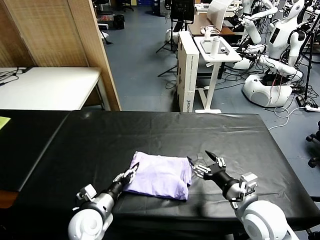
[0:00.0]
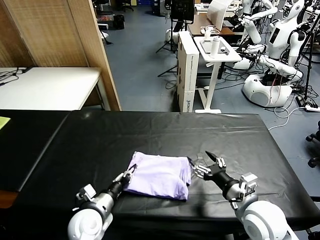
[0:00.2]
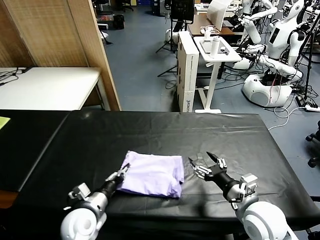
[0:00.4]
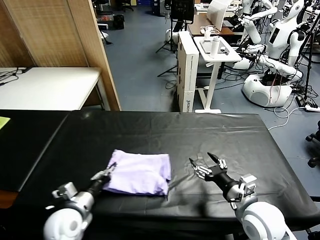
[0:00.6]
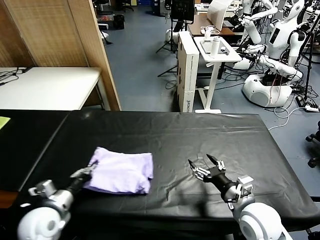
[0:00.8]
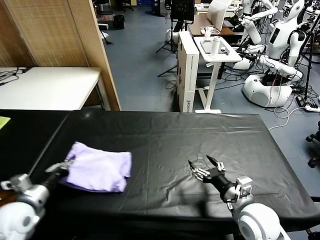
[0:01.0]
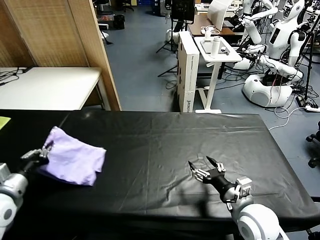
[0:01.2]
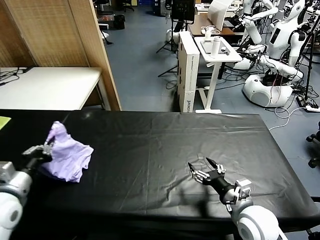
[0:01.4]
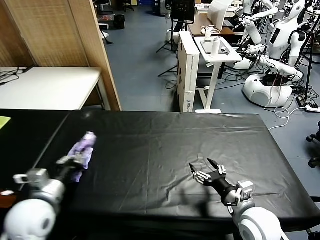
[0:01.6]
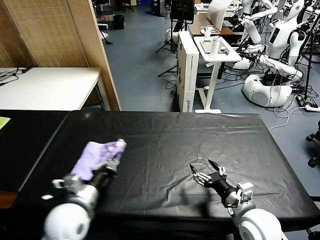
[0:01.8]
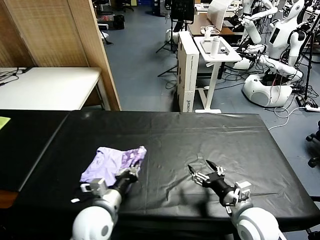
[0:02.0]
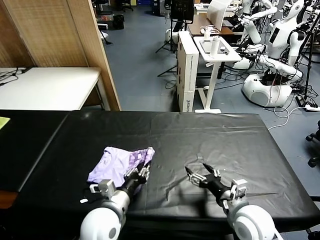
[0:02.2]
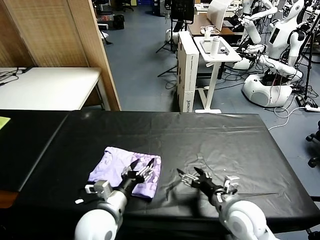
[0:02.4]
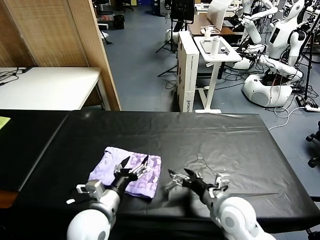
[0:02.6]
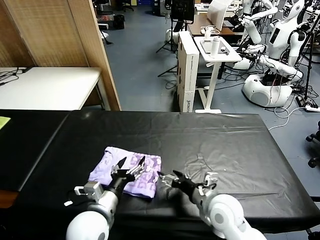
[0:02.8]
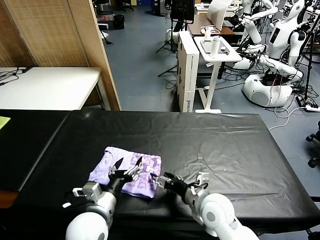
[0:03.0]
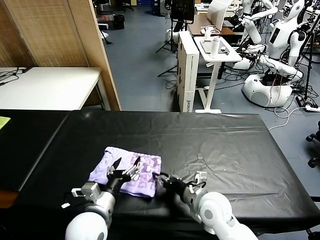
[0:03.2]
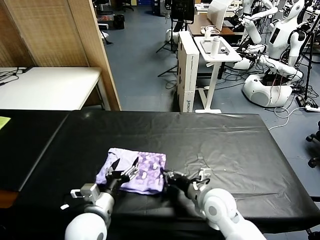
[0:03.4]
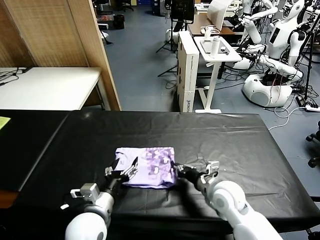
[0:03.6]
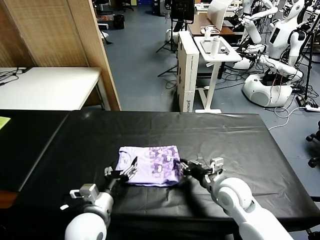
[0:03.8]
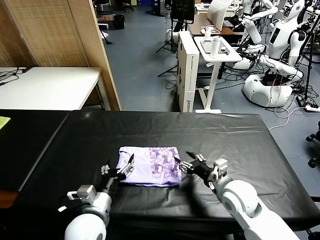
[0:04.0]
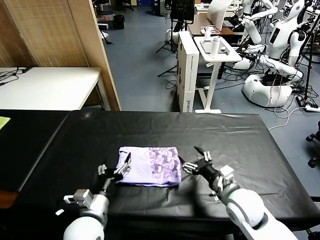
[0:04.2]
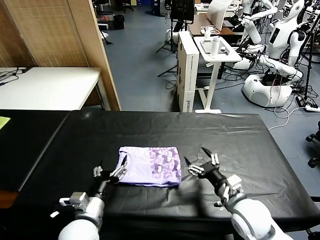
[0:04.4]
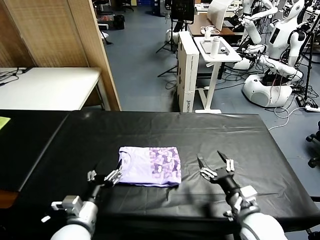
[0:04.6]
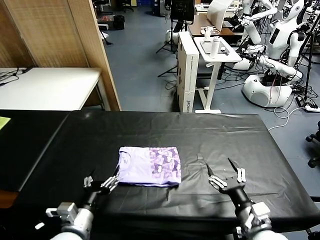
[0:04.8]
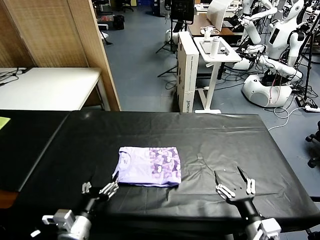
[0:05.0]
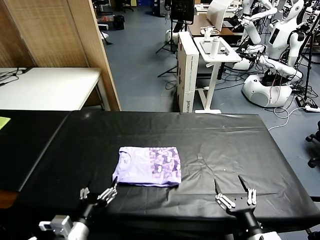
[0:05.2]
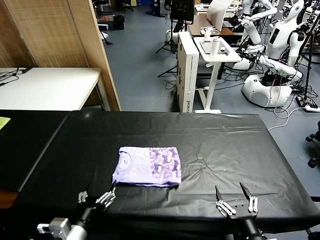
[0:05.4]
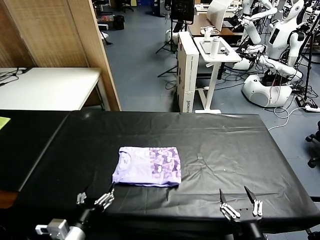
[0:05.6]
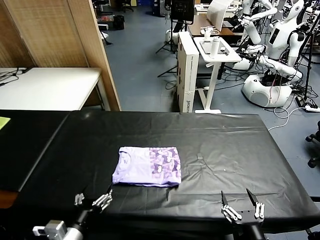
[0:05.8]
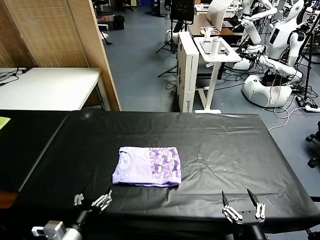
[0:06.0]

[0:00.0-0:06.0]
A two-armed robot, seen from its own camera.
Task of the whole recording: fold and organize the clothes.
Step, 0:00.0 to 0:02.4: Flip the folded clothes over with left gripper.
Step, 0:02.6 to 0:04.0: Drag the clothes to the center of the table.
0:00.0 to 0:01.6: The left gripper travels upward and to the left by roughly 15 cm, and closes.
0:01.6 to 0:03.0: The right gripper goes about 10 cm to the left and forward. The left gripper is displaced to the right by roughly 15 cm, and opens.
0:03.0 to 0:04.4: The right gripper heads to the right, covering roughly 10 cm, and closes, then reopens.
0:04.4 to 0:06.0: The right gripper shifts approximately 20 cm backward. Meanwhile the left gripper heads backward, covering some 10 cm.

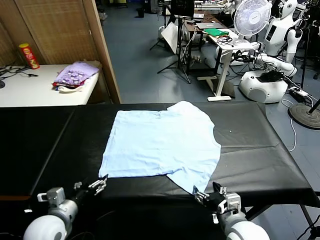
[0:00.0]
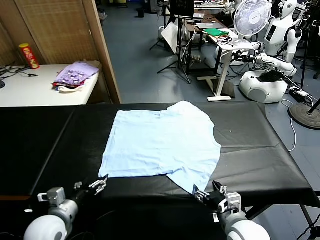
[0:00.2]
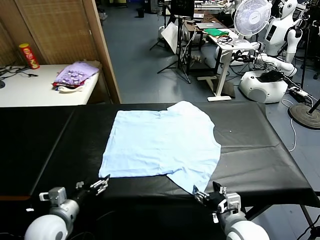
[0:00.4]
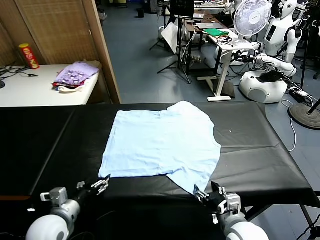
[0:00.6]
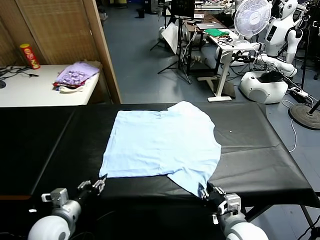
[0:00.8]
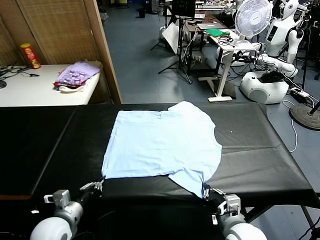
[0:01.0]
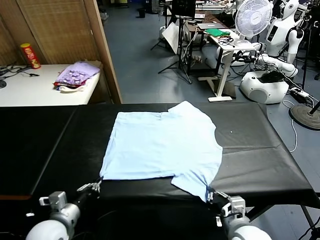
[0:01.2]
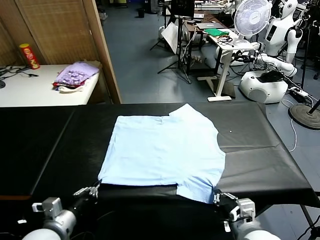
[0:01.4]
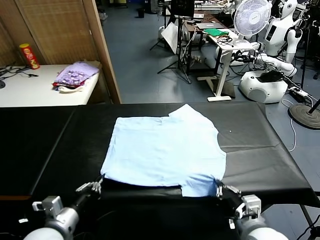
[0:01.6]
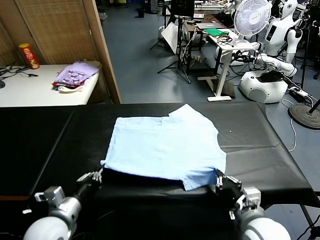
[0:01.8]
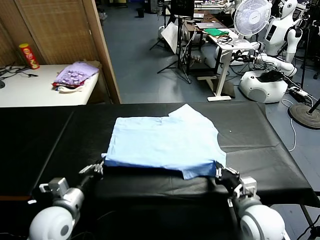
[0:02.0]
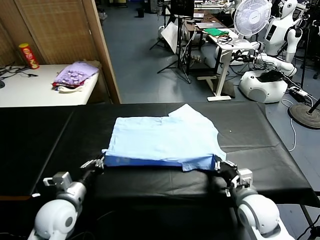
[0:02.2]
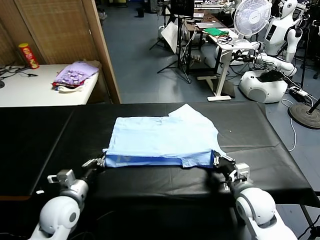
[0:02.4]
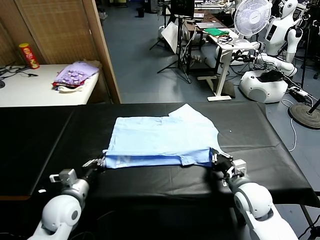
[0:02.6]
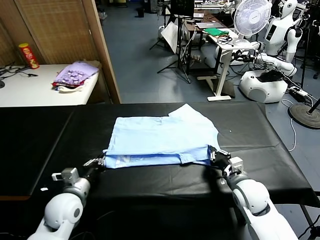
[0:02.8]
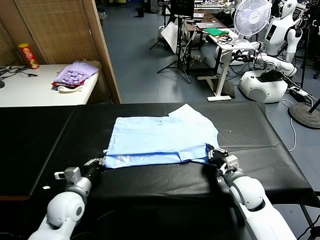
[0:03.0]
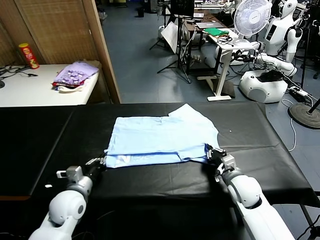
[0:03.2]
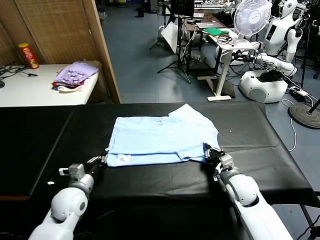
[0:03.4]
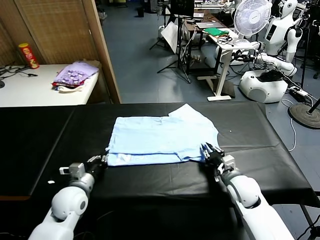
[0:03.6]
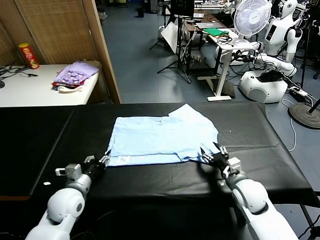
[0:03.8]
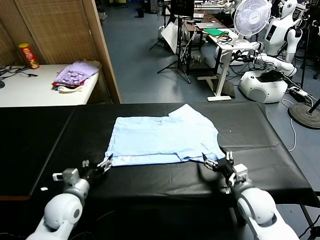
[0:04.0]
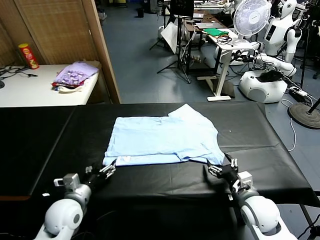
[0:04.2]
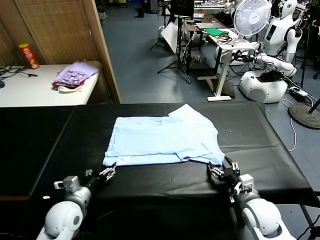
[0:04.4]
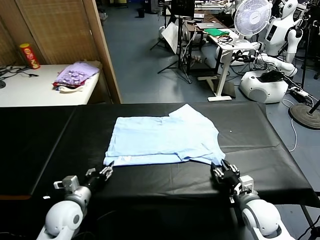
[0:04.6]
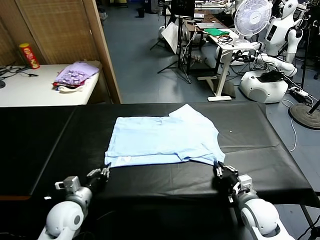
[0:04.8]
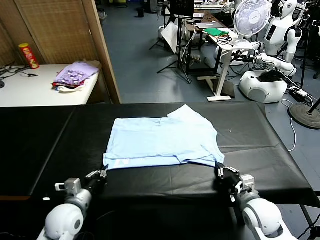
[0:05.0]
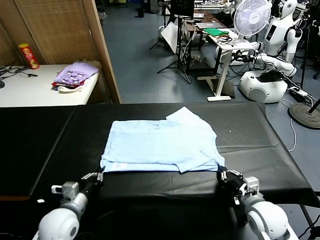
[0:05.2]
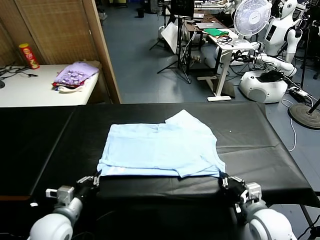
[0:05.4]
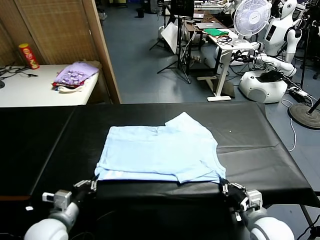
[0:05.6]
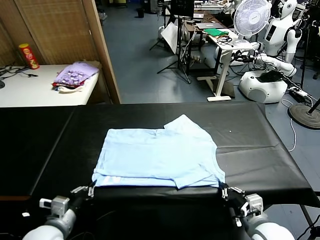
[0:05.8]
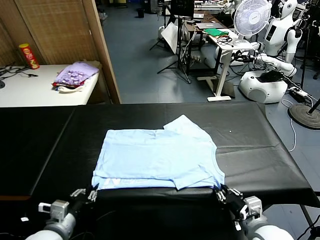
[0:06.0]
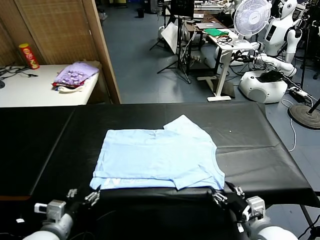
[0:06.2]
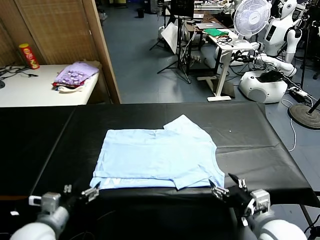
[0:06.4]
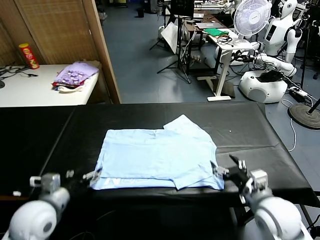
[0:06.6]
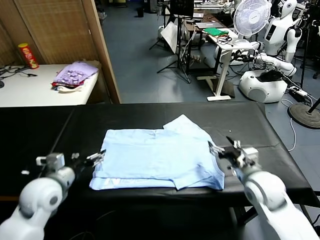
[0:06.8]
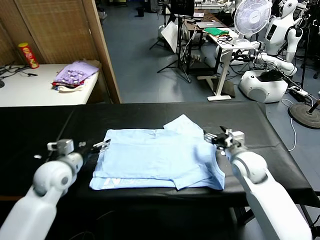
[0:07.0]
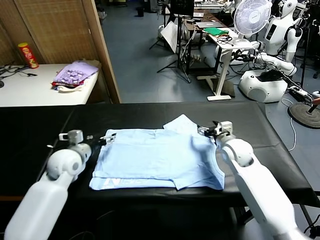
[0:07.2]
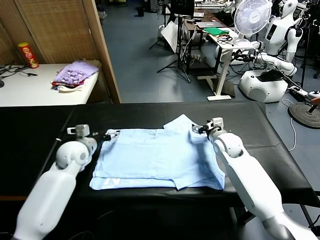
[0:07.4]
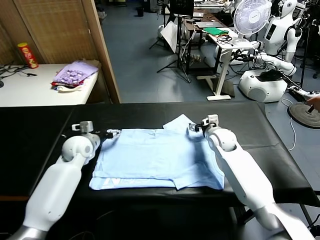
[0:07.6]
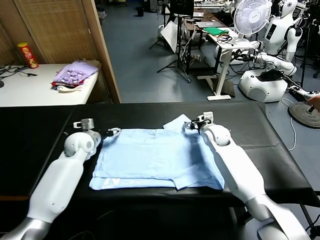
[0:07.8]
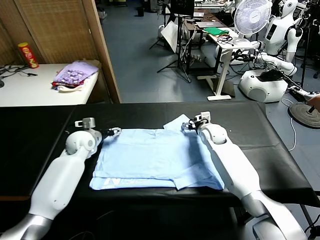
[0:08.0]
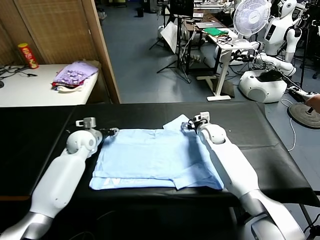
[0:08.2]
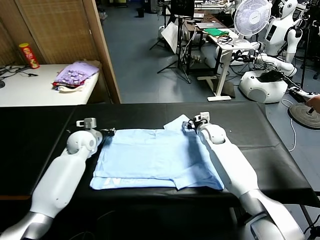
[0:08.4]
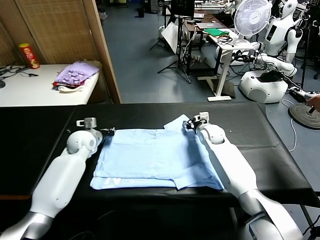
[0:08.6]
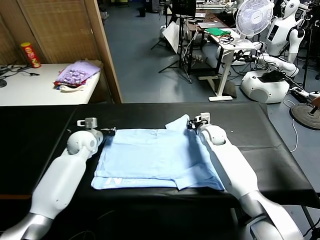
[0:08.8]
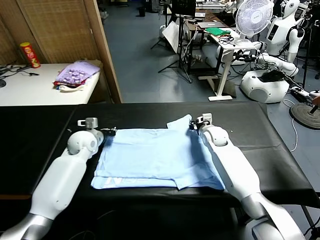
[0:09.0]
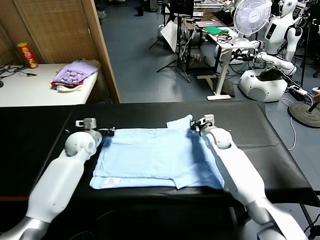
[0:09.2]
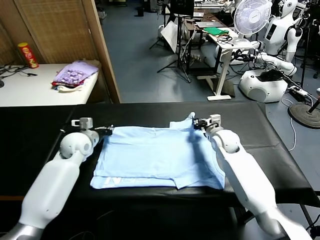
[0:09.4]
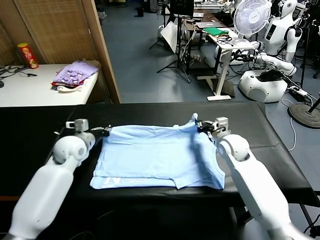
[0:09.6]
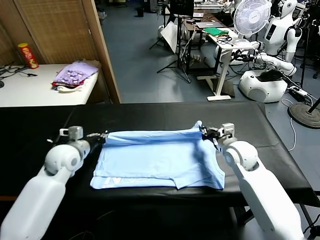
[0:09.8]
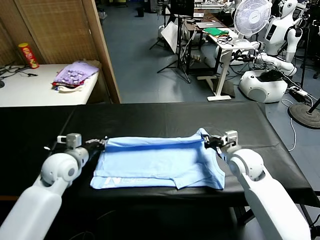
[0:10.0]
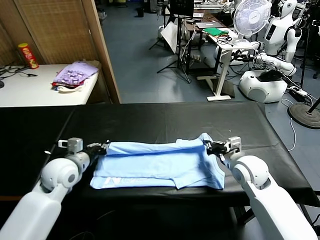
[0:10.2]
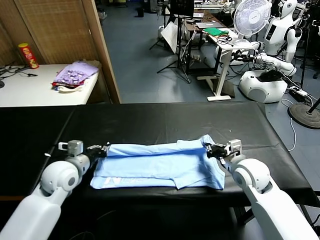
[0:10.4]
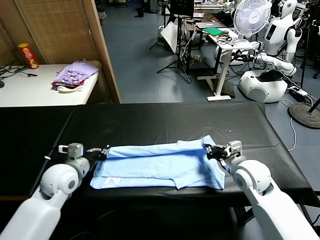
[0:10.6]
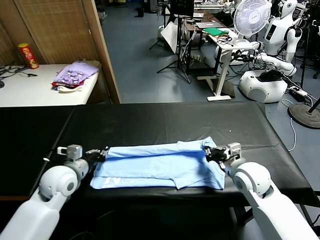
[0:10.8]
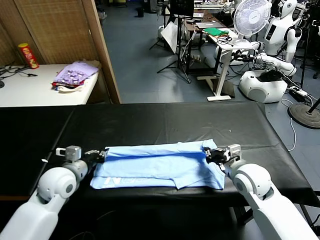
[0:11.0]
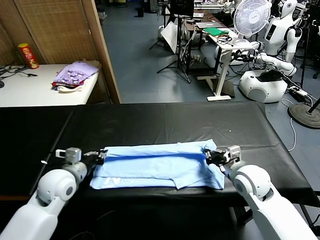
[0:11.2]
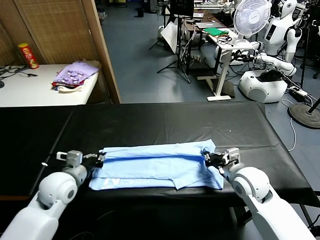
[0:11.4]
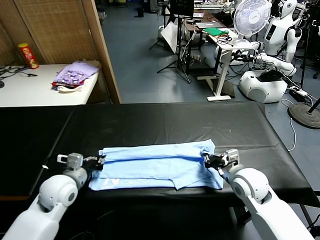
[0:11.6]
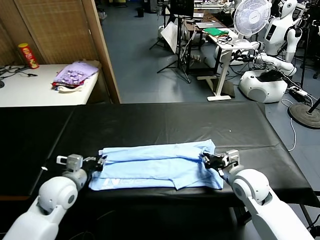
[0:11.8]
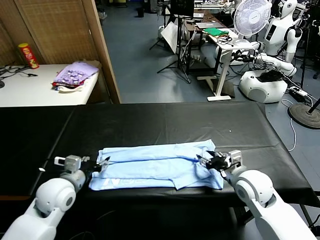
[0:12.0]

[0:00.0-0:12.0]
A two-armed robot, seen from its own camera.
Task of the whole recording: fold and organize the clothes.
Step, 0:00.0 to 0:01.0: use both grippers simultaneously to clamp the lower edge of the clothing fabric.
Step, 0:01.2 to 0:03.6: use both grippers to drag the lower edge of the fabric forward and fold it over the upper edge.
Step, 0:03.8 to 0:06.0: Drag the clothes downward with both gripper.
Step, 0:06.2 to 0:08.8: use both grippers simultaneously to clamp the upper edge of the clothing fabric.
Step, 0:09.0 to 0:11.8: use both grippers to drag the upper edge of the fabric backward and fold it over the lower edge.
0:01.6 to 0:03.0: Both grippers move forward and downward, approximately 15 cm.
0:03.0 to 0:04.4: The right gripper travels backward by roughly 10 cm, and opens up, while the left gripper opens its fingers.
0:04.4 to 0:06.0: The right gripper shifts roughly 10 cm backward and upward, and closes and opens again; the left gripper travels backward by about 10 cm, and closes and opens again.
0:06.0 to 0:07.6: Both grippers move forward, about 35 cm. The left gripper opens its fingers.
0:07.6 to 0:09.0: The left gripper closes, while the right gripper closes up.
0:09.0 to 0:10.4: The grippers both shift backward by about 15 cm.
0:10.4 to 0:12.0: The left gripper opens its fingers. The right gripper opens up.

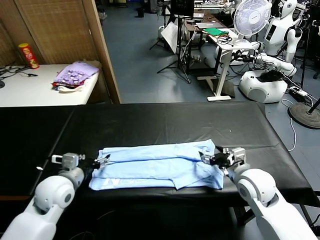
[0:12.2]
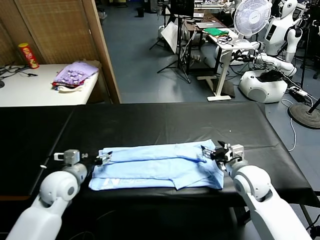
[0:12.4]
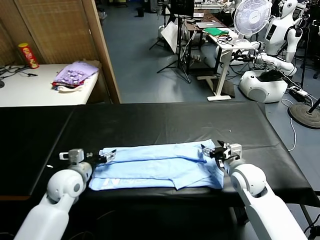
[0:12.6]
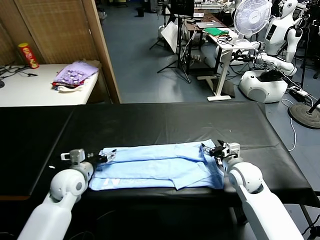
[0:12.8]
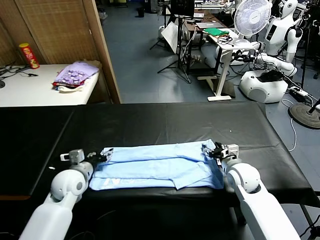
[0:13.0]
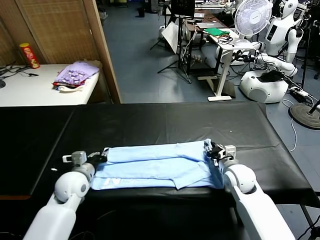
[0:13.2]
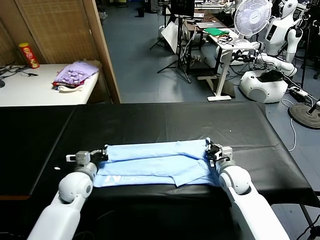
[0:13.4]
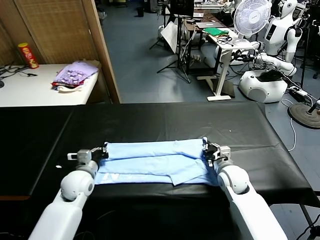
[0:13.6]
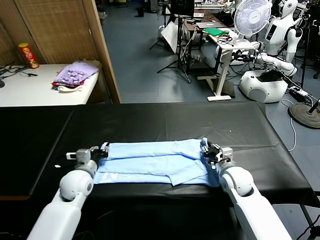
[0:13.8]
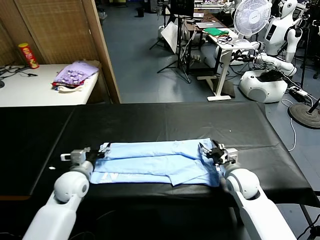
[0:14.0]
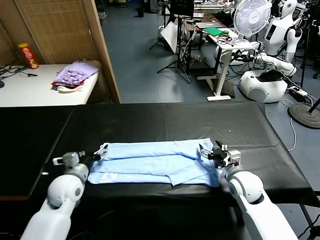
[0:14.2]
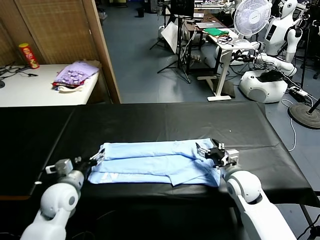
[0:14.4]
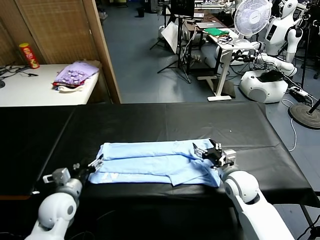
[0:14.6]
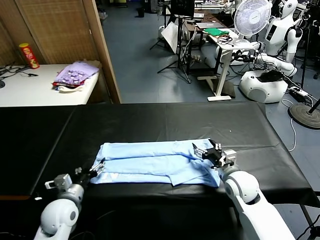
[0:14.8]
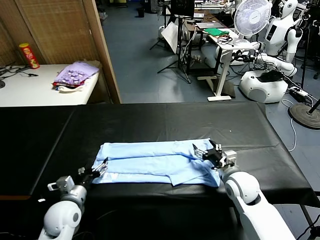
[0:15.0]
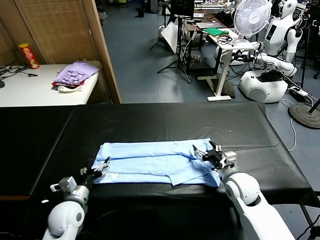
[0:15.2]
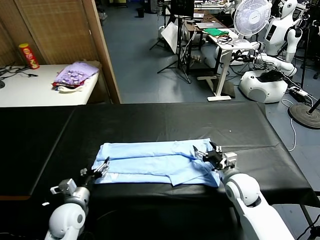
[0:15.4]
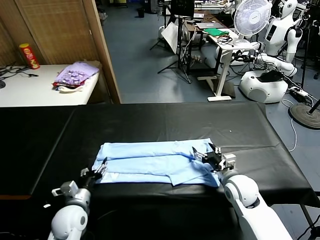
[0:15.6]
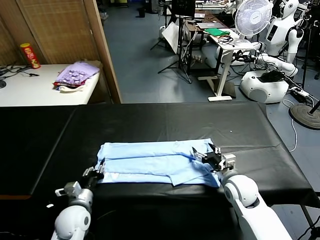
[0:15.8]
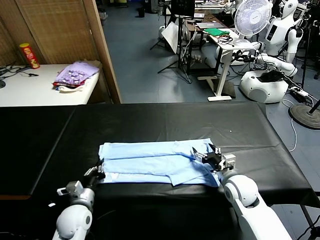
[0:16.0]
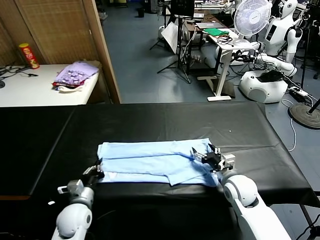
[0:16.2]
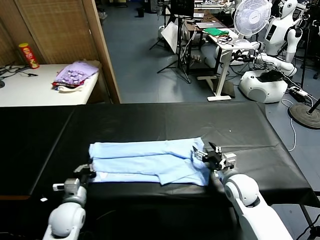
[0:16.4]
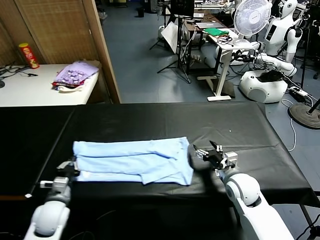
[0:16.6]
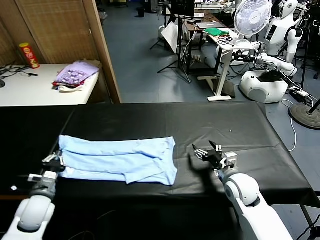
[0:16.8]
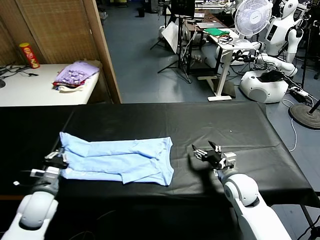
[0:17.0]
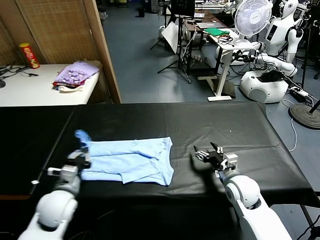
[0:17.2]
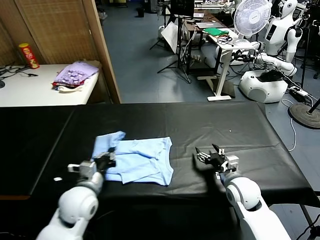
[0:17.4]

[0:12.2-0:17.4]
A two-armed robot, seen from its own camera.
Task of the whole recording: fold and organize the clothes.
Step, 0:12.2 to 0:16.2: use the left gripper to clamp the left edge of the fabric.
0:12.2 to 0:14.0: The two grippers go roughly 5 cm downward. The left gripper closes, then opens again. The right gripper closes, then opens again.
0:14.0 to 0:15.6: The left gripper travels backward and downward by roughly 10 cm.
0:15.6 to 0:17.4: The left gripper travels upward by some 10 cm, travels to the left and back again, roughly 10 cm each way, and closes.
